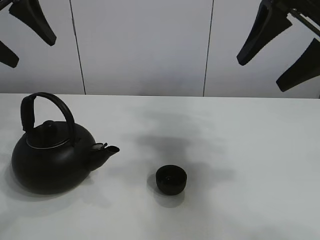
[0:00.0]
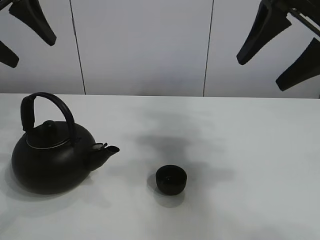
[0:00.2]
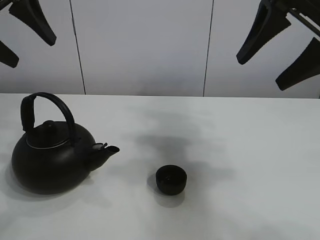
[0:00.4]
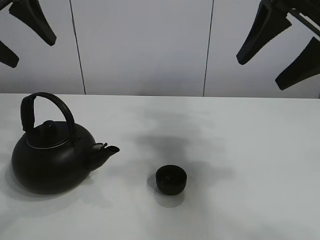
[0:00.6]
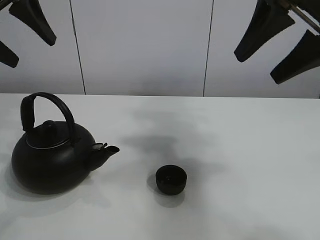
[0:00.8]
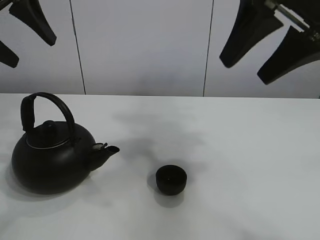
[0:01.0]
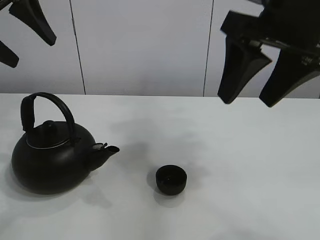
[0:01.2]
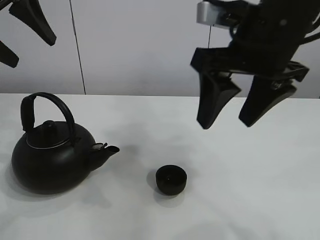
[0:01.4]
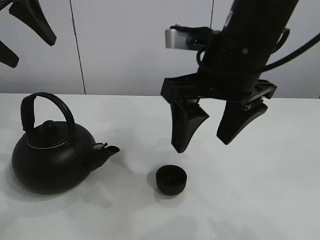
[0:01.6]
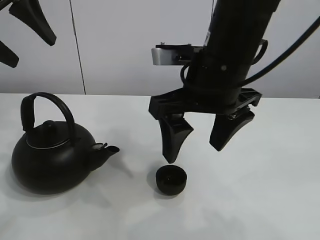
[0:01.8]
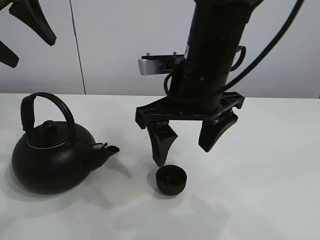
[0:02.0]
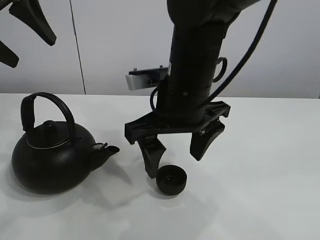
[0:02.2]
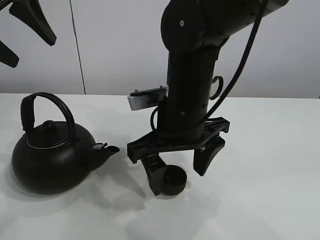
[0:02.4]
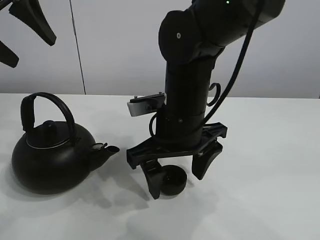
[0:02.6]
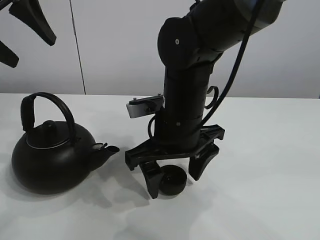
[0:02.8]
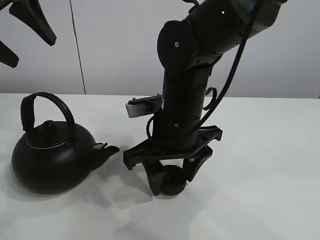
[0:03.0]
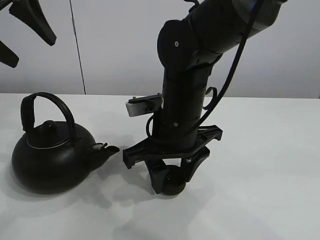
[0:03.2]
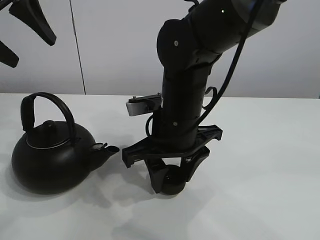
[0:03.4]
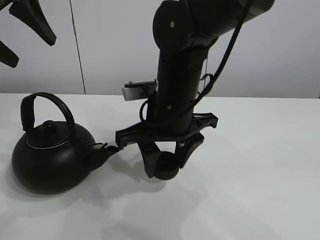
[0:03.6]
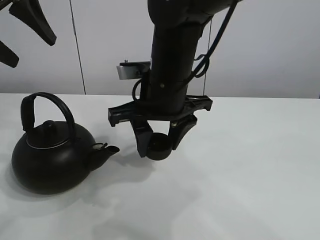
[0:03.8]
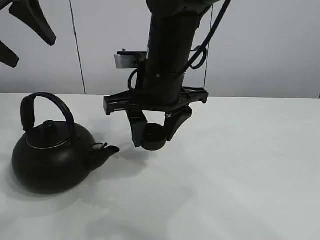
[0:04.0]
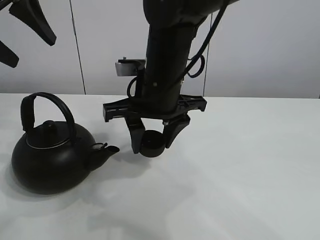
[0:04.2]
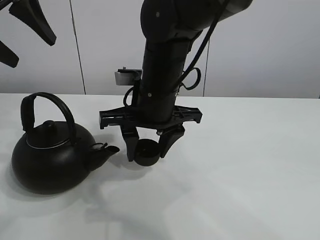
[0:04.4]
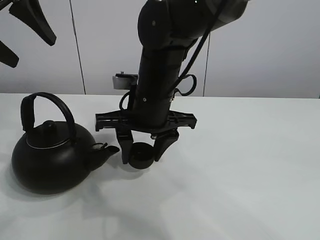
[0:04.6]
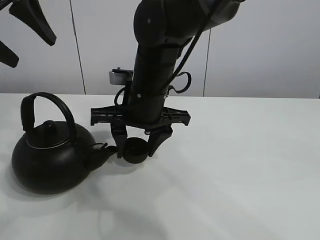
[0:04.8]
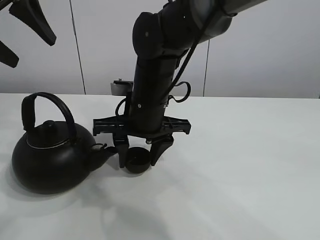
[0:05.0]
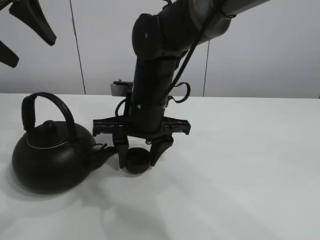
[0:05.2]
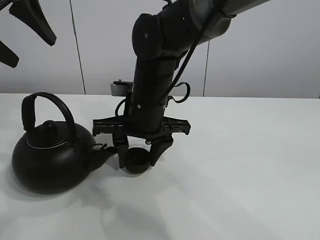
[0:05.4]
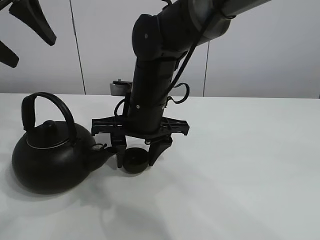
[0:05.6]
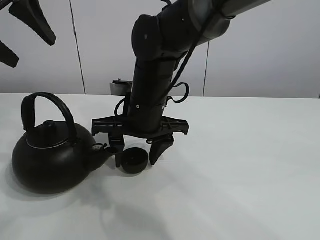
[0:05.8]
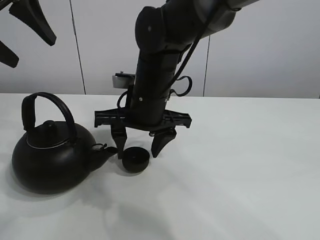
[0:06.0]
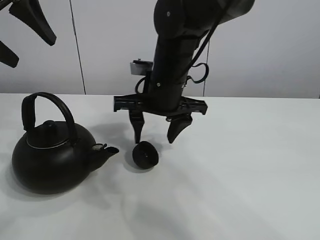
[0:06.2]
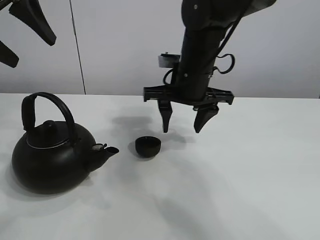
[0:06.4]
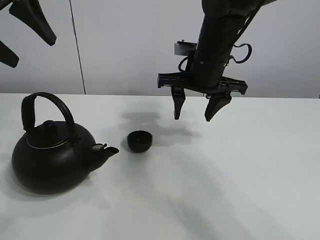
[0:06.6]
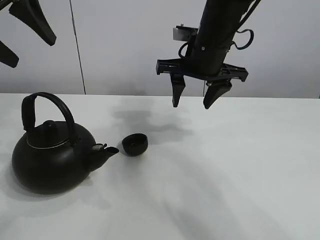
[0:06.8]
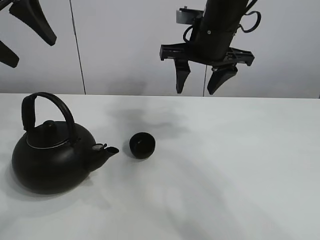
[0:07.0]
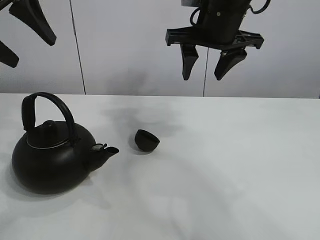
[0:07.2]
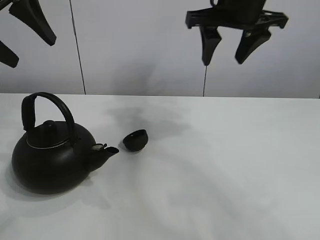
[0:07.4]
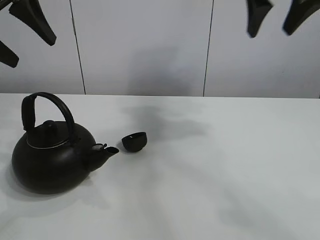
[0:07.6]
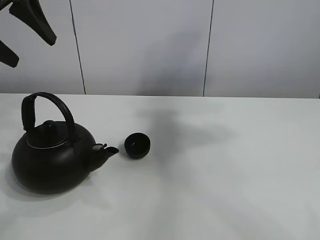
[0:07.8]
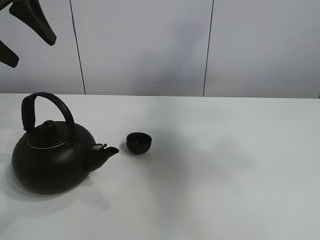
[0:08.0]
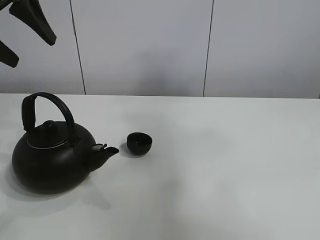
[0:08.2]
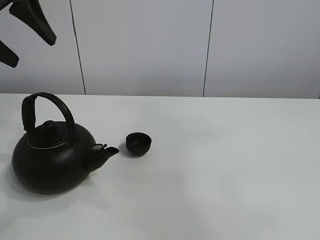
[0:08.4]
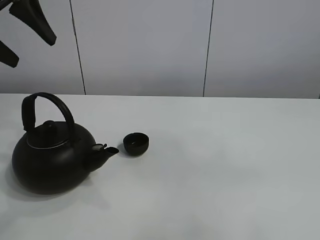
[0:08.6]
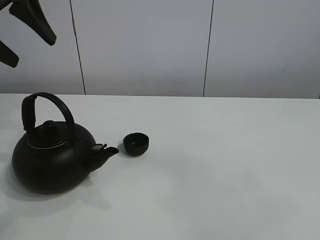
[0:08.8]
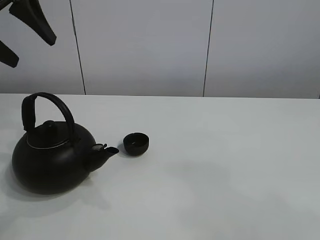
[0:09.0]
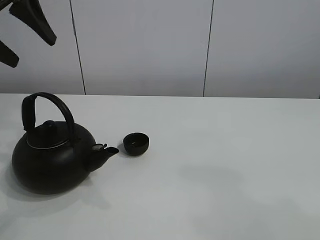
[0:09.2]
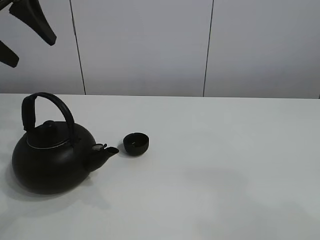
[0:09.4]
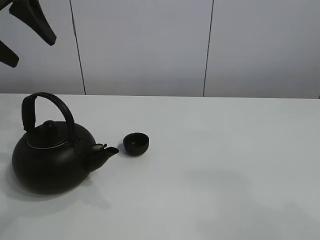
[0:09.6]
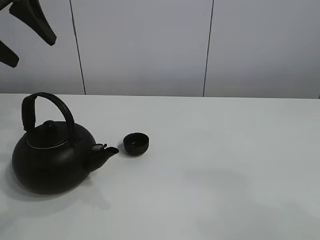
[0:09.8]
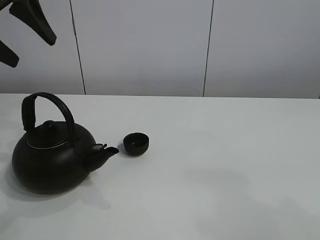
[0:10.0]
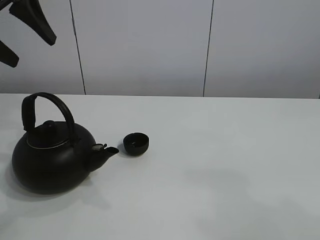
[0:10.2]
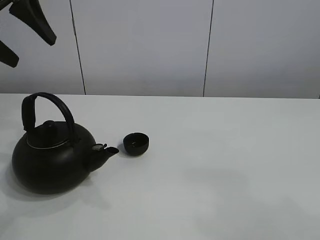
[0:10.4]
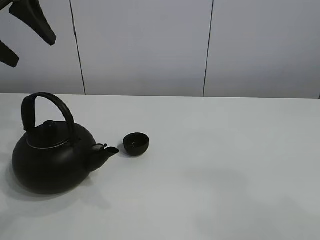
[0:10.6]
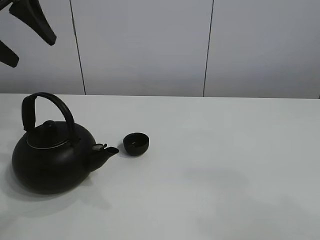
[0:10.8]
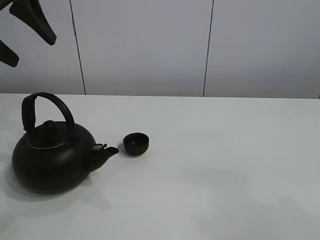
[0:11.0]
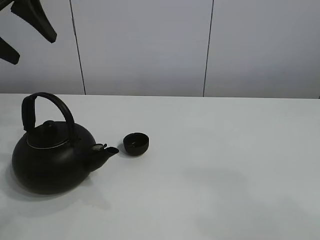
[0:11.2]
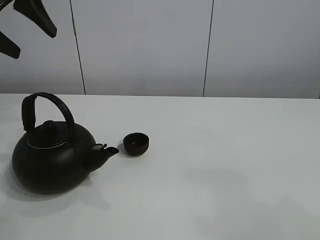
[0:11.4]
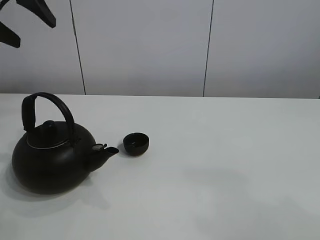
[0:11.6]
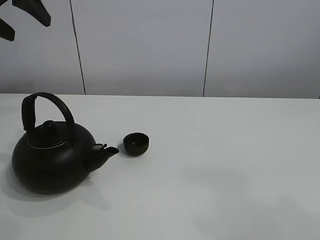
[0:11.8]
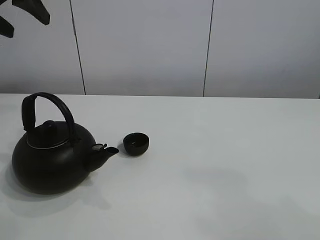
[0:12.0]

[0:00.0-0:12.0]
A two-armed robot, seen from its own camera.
Task of the whole recording: pour tea into the teacup.
Step, 0:00.0 to 0:03.4: Pick up the teacup with the right gripper.
Step, 0:03.6 to 0:05.8: Place the teacup in the center of view with the right gripper.
0:01.6 to 0:03.0: The right gripper shifts approximately 10 cm downward and to the left, and closes its fingers.
0:03.0 to 0:04.4: The right gripper changes place by roughly 5 cm, and closes its fingers.
0:04.4 to 0:06.0: There are only small adjustments of the grippers.
0:06.0 to 0:07.6: The right gripper moves to the right and upward, some 30 cm.
0:07.6 to 0:09.0: The right gripper heads backward, covering about 40 cm.

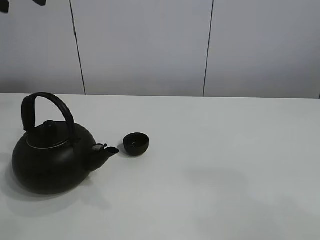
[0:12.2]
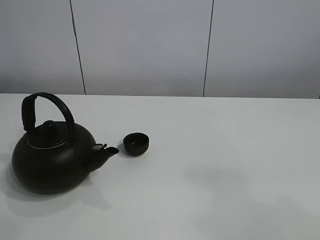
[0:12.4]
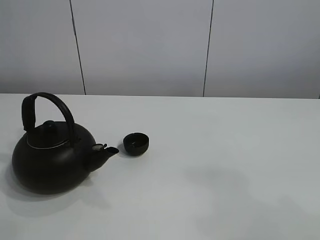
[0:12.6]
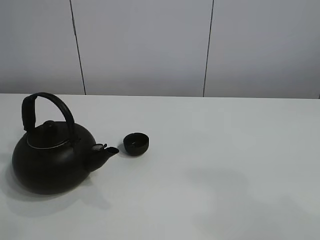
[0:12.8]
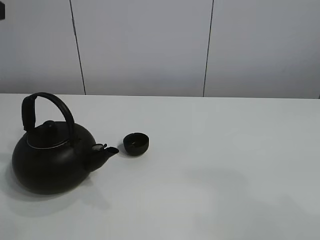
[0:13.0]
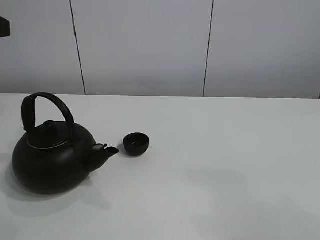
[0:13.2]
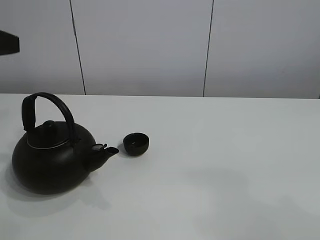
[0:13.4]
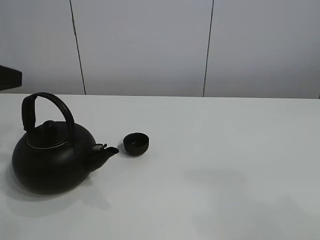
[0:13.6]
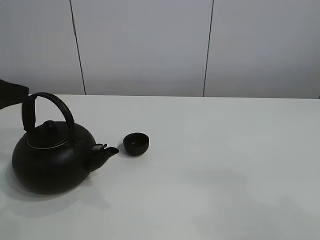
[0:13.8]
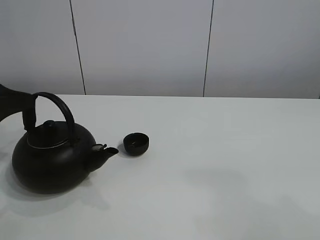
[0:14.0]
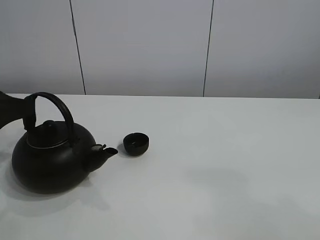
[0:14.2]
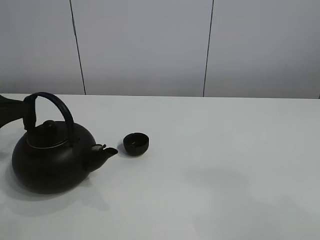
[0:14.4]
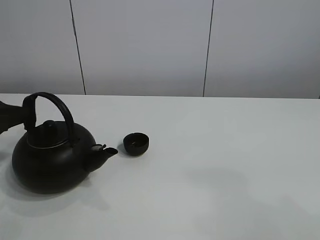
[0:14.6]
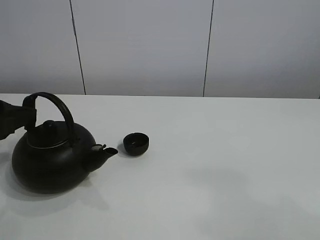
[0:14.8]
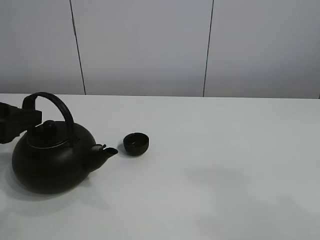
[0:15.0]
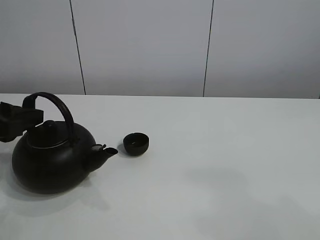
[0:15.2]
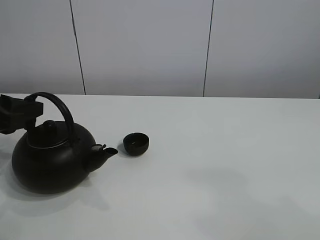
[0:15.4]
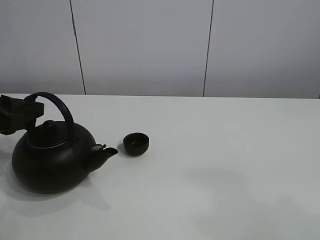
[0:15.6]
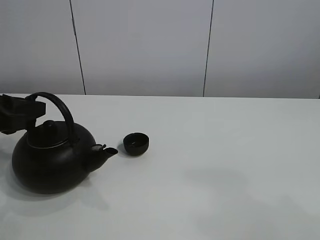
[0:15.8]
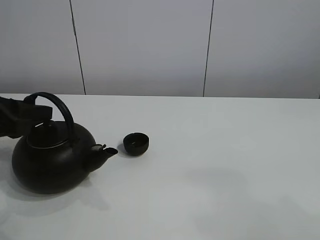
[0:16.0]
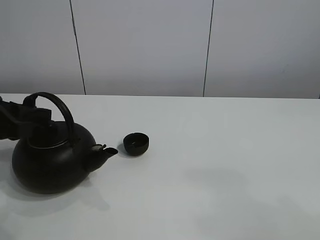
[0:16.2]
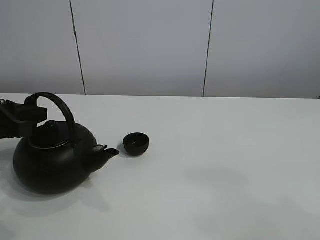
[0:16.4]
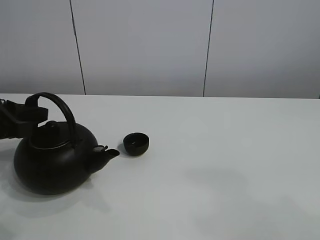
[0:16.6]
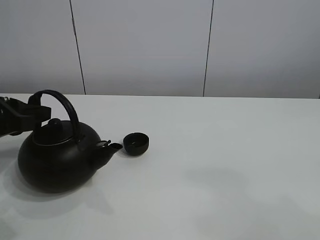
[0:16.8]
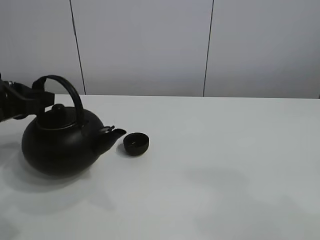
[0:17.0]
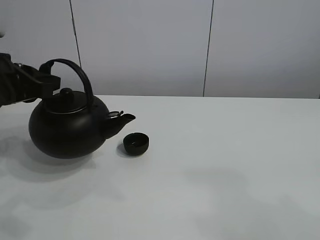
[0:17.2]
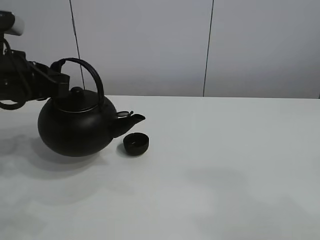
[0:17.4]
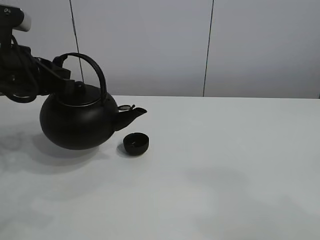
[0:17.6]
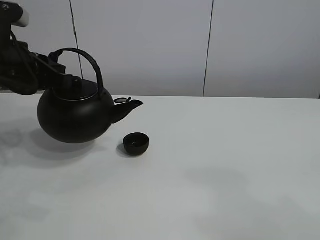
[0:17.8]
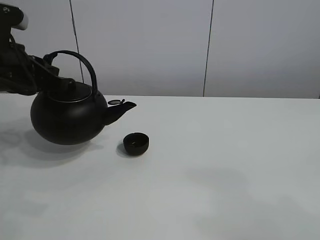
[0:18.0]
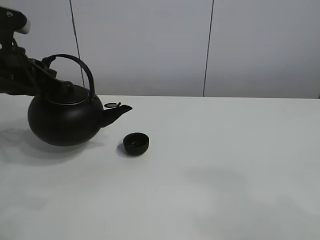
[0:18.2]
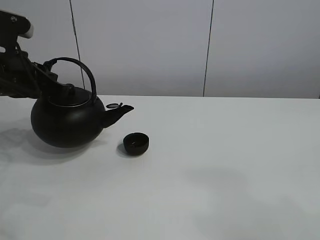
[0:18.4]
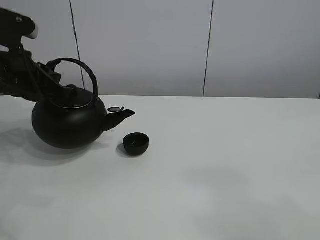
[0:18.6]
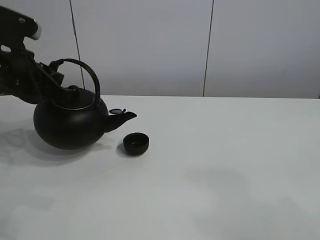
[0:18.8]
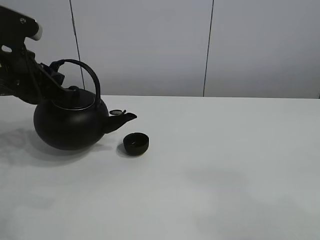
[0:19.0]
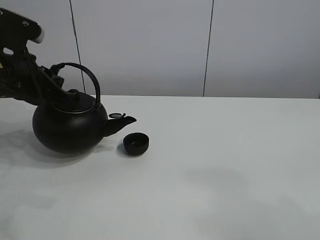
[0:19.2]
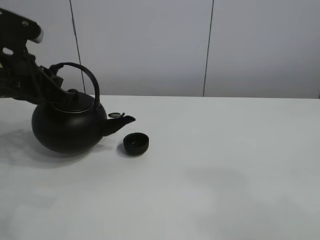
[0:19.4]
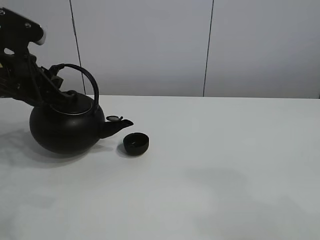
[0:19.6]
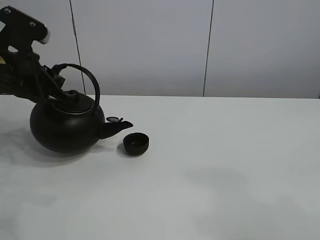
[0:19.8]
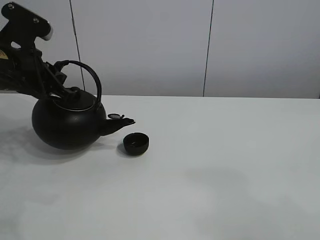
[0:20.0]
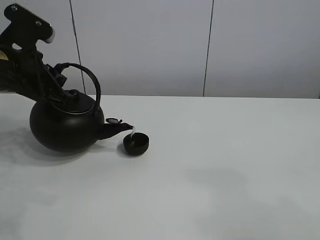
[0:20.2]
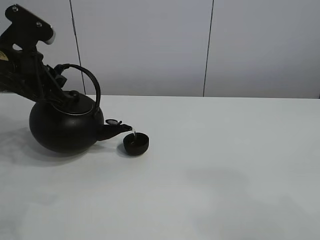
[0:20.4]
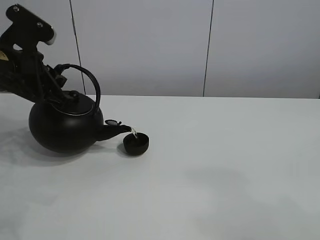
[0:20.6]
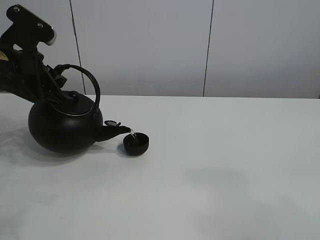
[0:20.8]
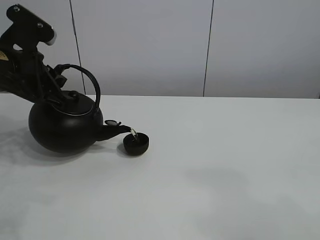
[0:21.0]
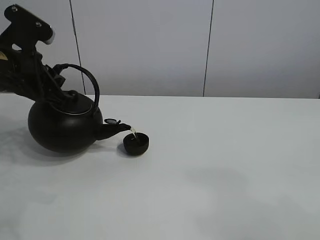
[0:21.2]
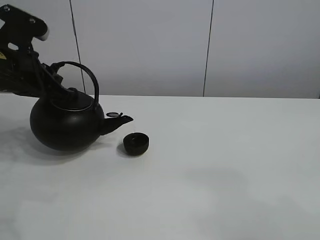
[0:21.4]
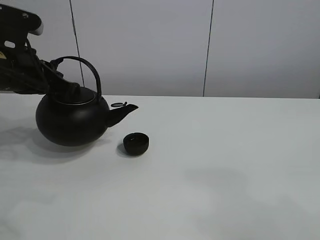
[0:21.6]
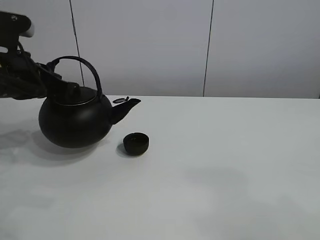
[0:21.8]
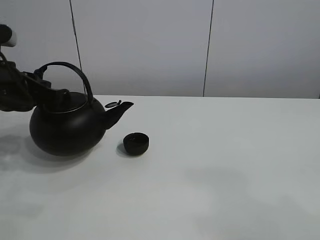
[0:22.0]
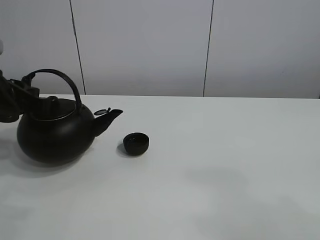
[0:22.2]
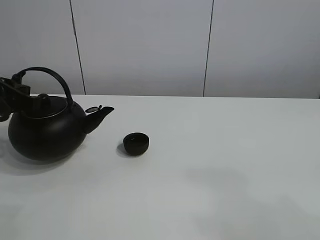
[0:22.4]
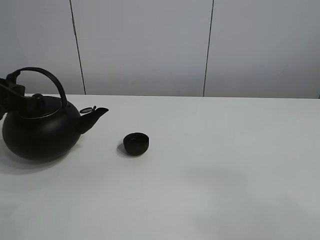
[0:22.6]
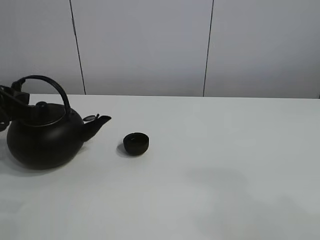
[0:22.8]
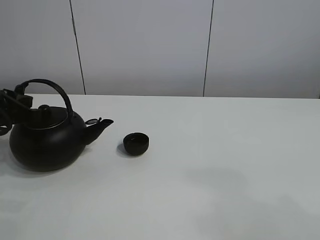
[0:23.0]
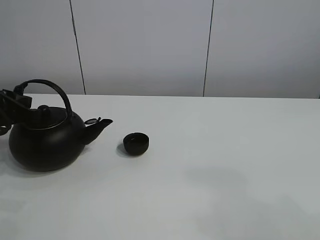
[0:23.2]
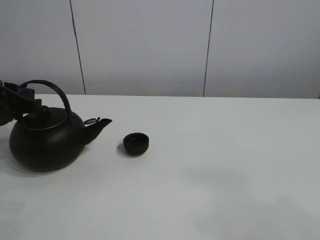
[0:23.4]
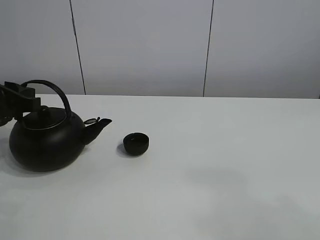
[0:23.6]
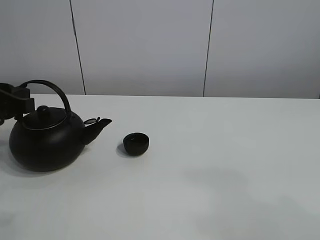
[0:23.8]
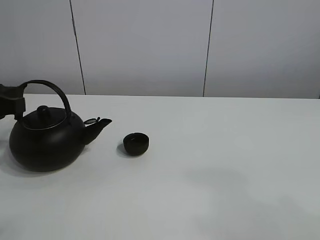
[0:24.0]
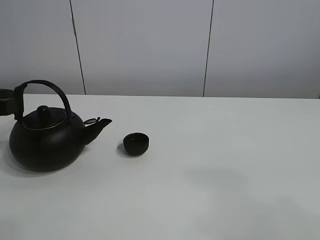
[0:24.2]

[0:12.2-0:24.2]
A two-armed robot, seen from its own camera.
Task of the whole recording: pour tea into the teacup.
Step, 0:12.2 to 0:16.8: Pick up the teapot with the left gripper.
Step, 0:17.0 to 0:21.6: Pour tea into the teacup with the left gripper.
0:12.2 to 0:13.8: The left gripper is displaced downward and backward by approximately 20 cm.
0:13.8 to 0:15.2: The left gripper shifts roughly 5 cm downward.
0:15.2 to 0:16.6: The left gripper closes up.
0:16.6 to 0:18.2: The left gripper heads upward, covering some 5 cm.
0:18.2 to 0:21.2: There are only small adjustments of the grippers.
0:21.2 to 0:22.6: The left gripper goes some 5 cm to the left.
0:22.6 to 0:24.2: The left gripper opens its fingers.
